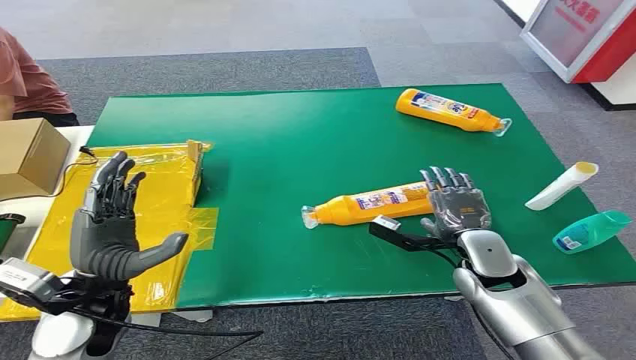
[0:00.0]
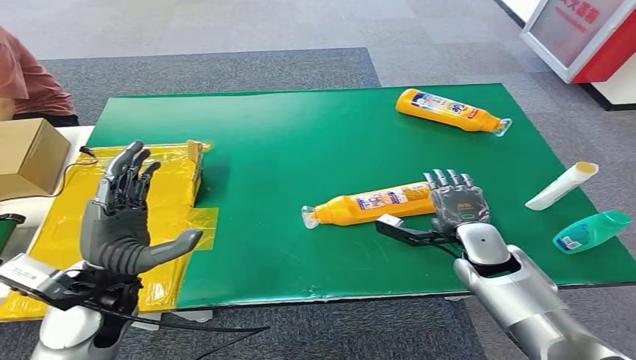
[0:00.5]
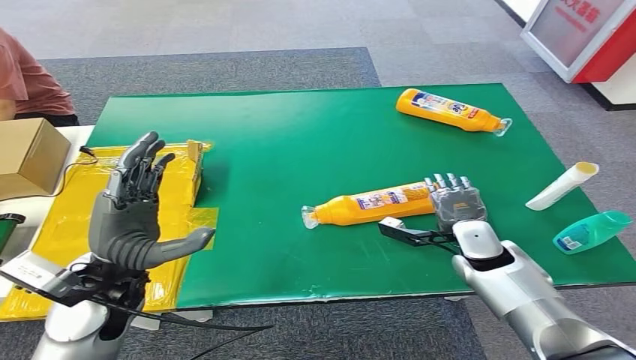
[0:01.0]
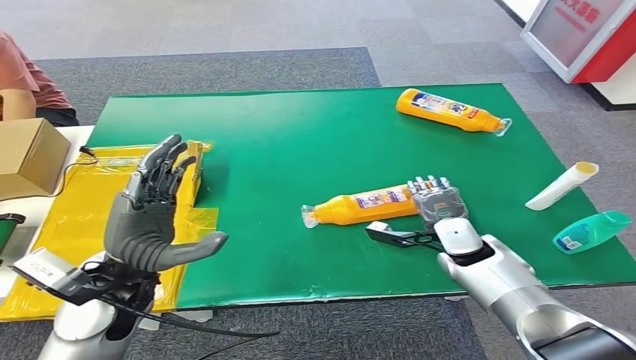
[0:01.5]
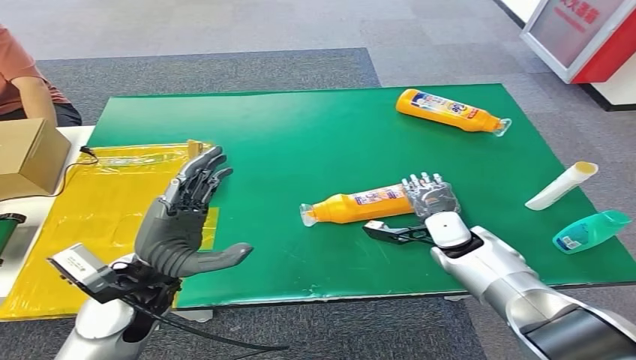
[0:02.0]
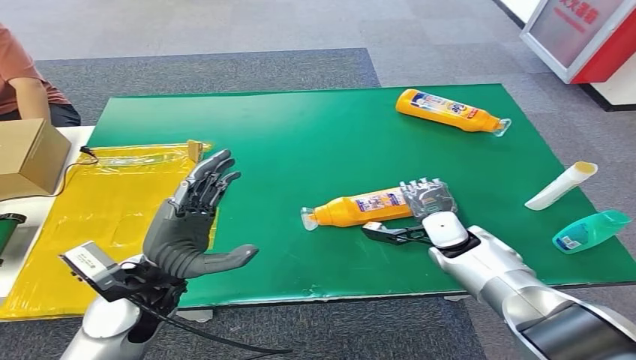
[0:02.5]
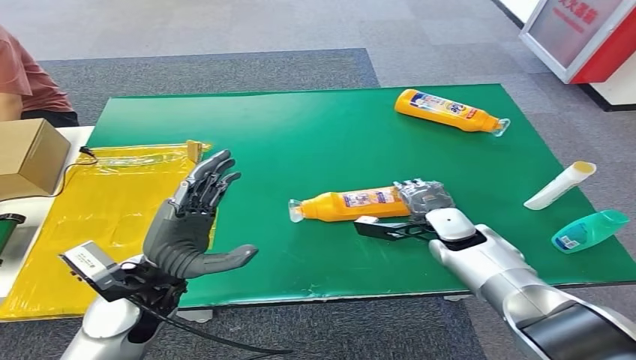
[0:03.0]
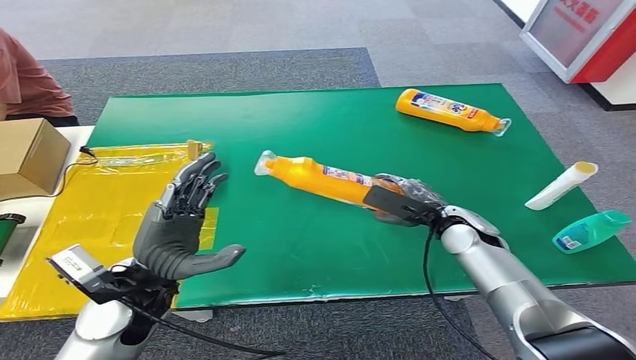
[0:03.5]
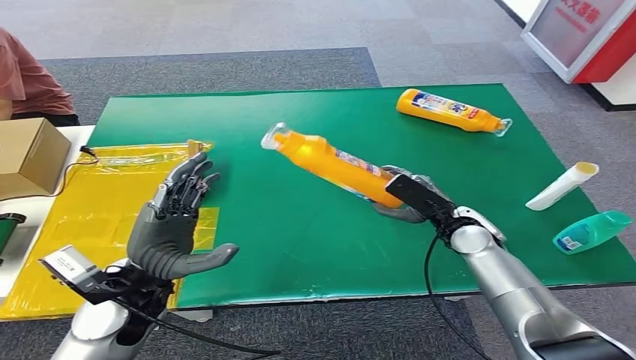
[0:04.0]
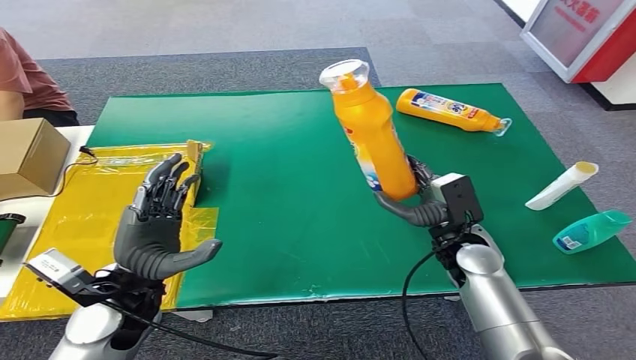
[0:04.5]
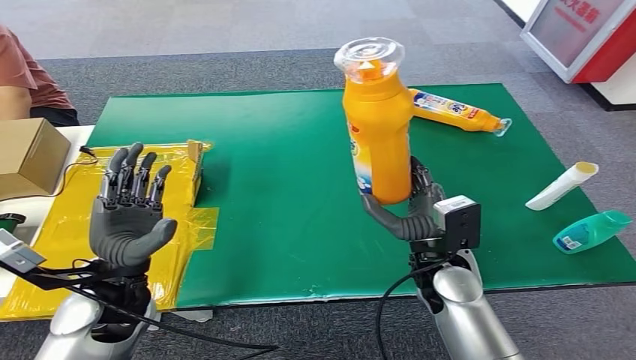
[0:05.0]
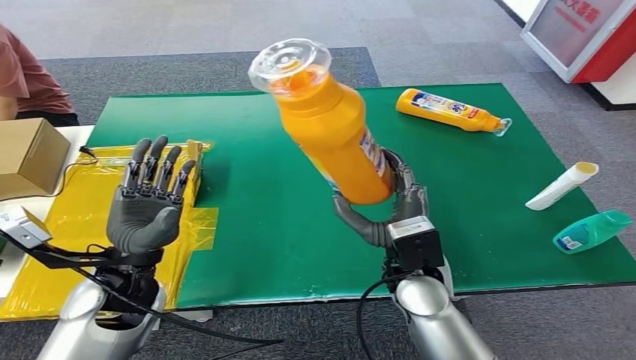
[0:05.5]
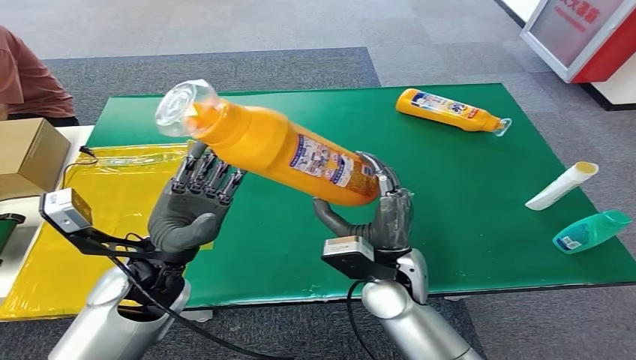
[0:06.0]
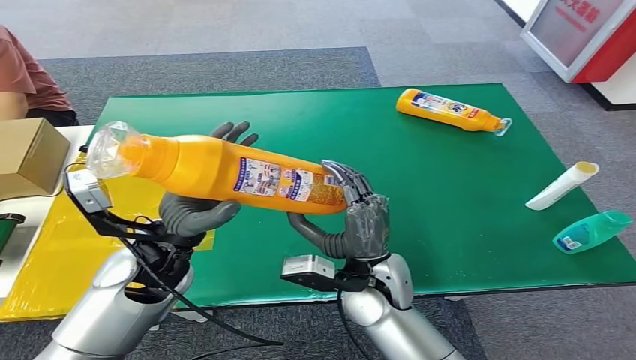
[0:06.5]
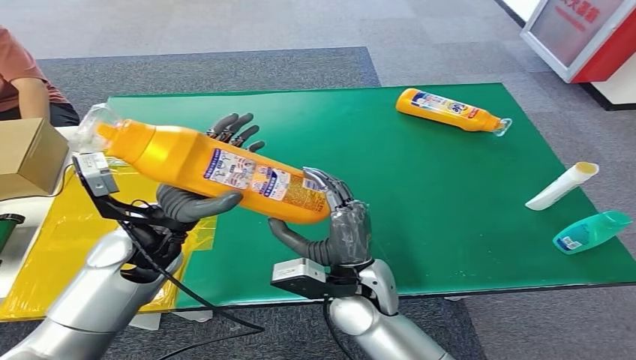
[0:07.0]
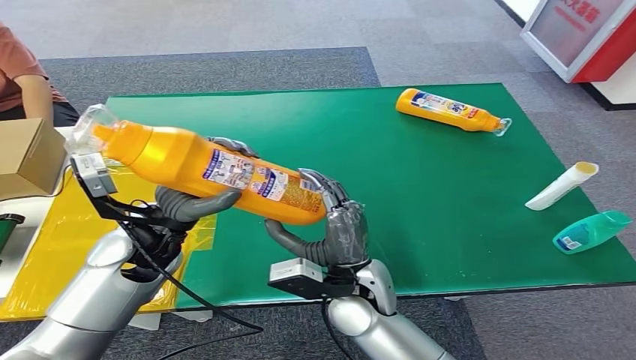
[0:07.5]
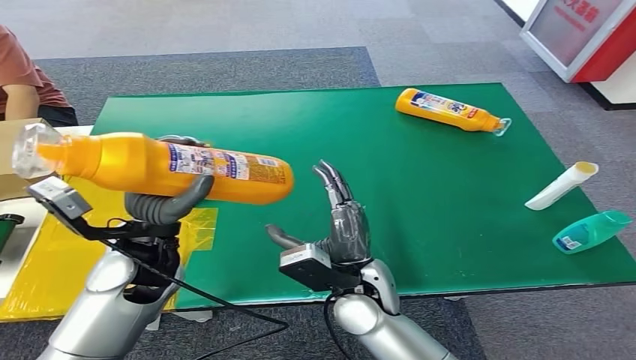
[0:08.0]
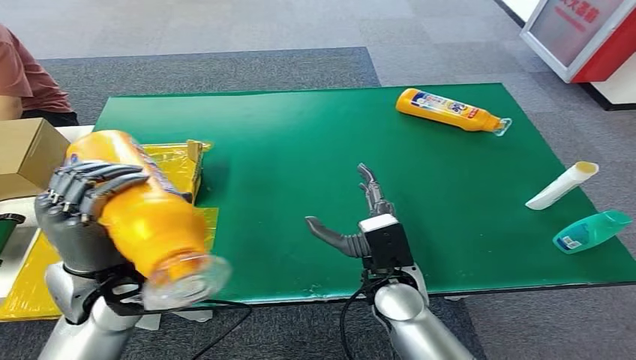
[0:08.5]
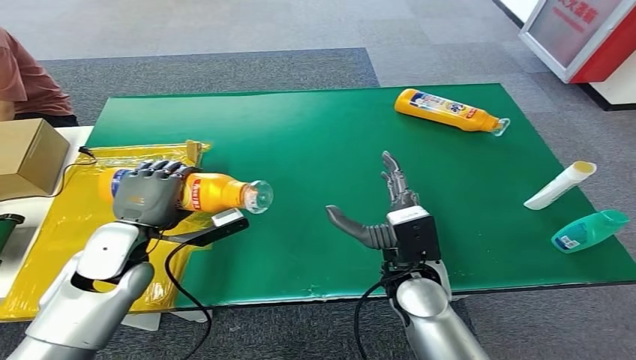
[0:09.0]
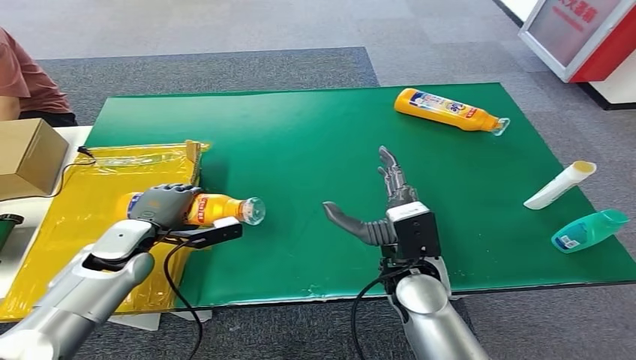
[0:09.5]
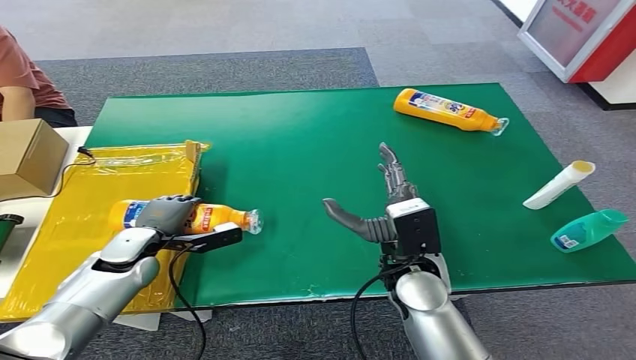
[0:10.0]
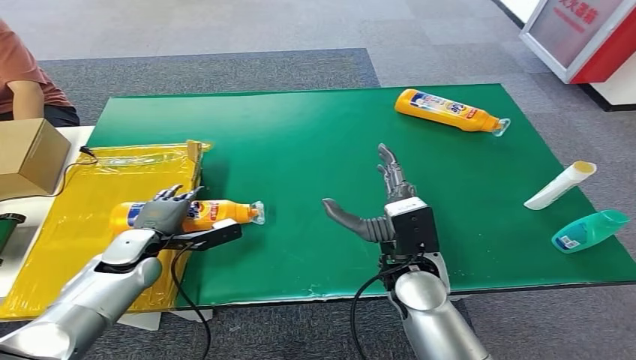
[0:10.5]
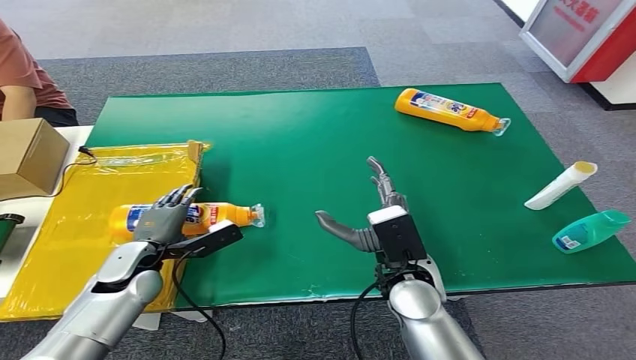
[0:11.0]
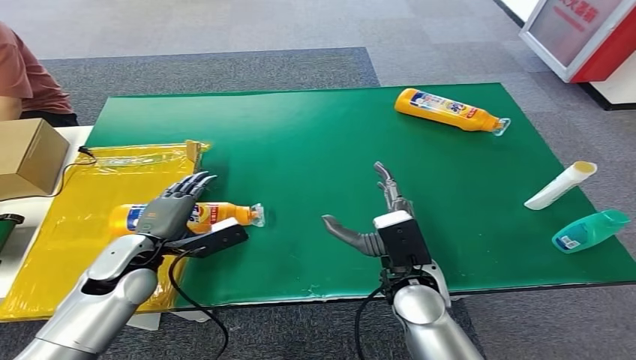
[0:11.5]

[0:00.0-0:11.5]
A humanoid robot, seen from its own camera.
Step, 0:00.0 to 0:03.5: Pick up the bottle from the table.
Step, 0:04.0 to 0:11.5: Turn the bottle to the front side.
0:09.5 to 0:11.5: The left hand ends up roughly 5 cm from where it was.

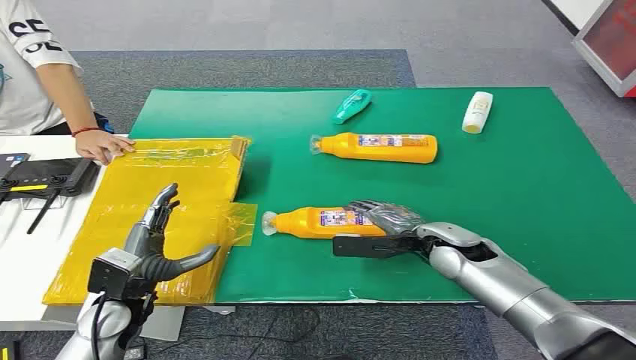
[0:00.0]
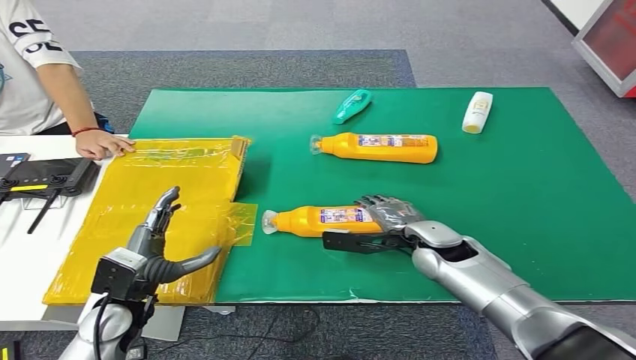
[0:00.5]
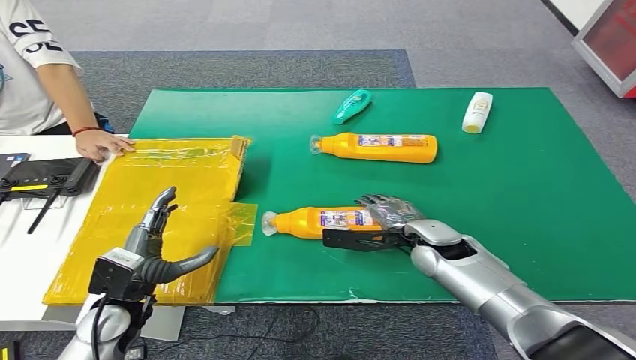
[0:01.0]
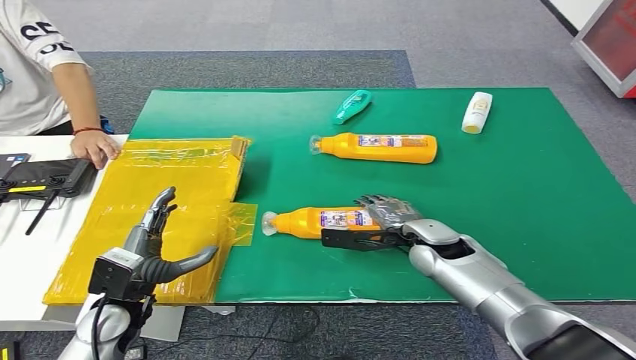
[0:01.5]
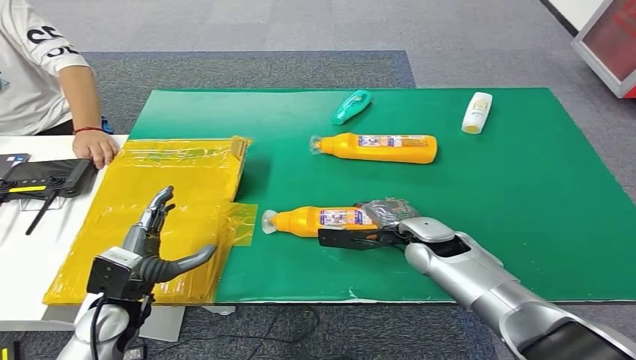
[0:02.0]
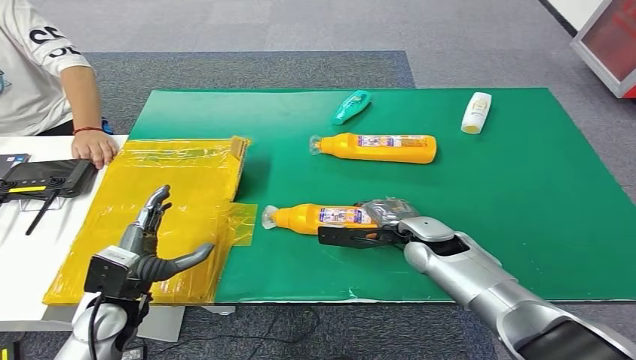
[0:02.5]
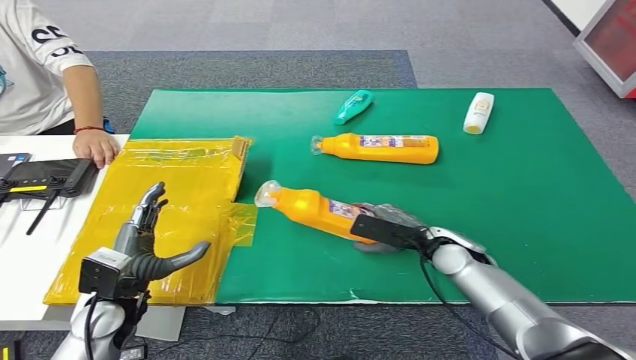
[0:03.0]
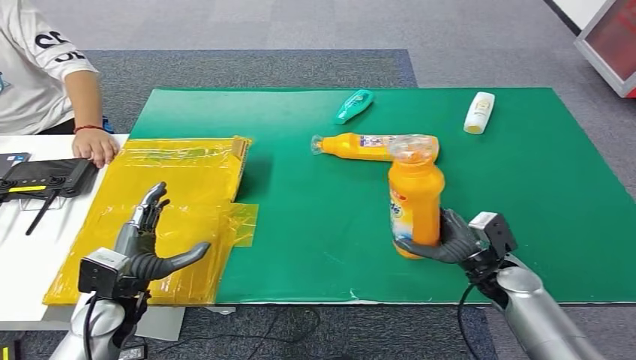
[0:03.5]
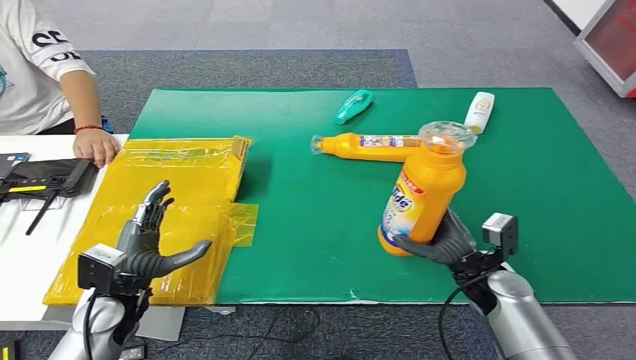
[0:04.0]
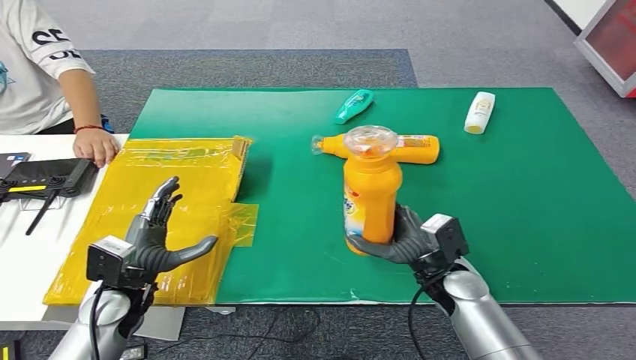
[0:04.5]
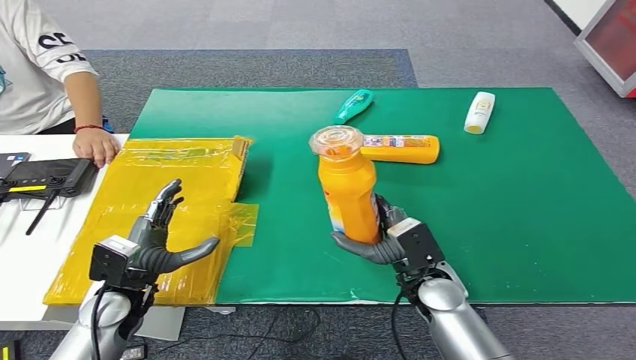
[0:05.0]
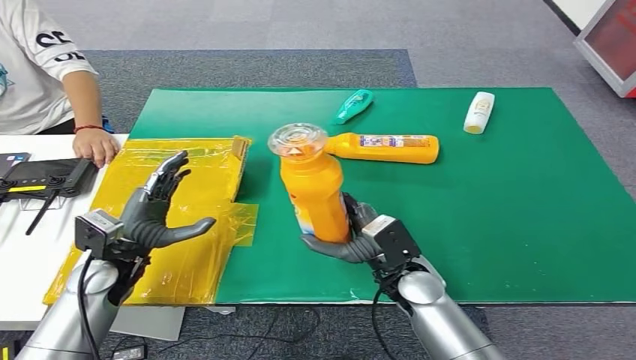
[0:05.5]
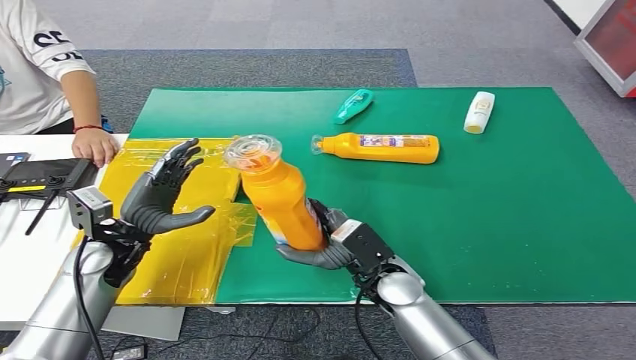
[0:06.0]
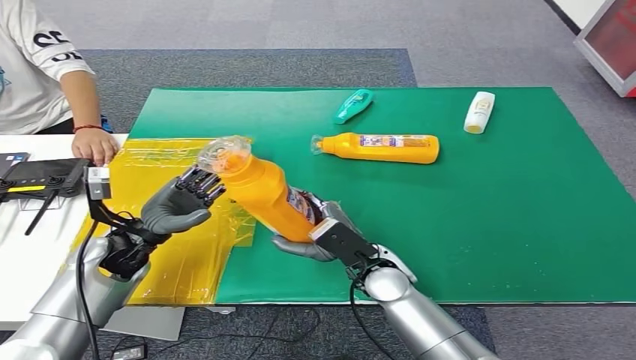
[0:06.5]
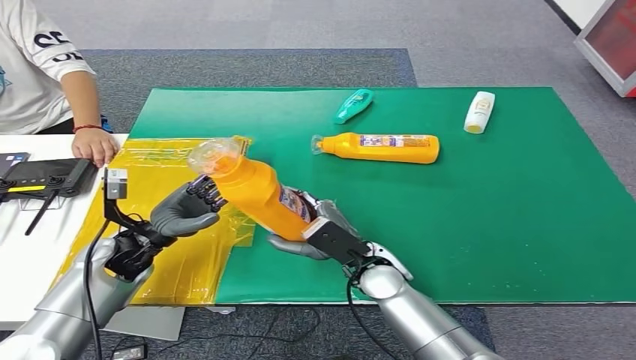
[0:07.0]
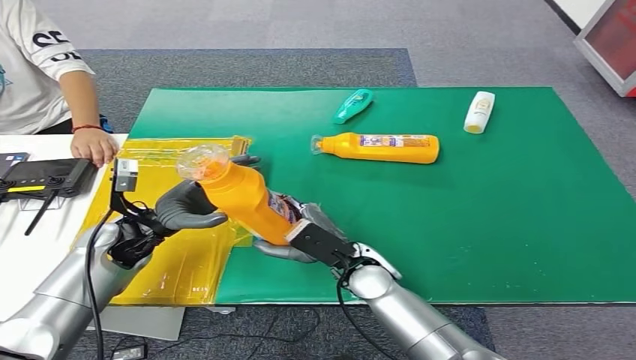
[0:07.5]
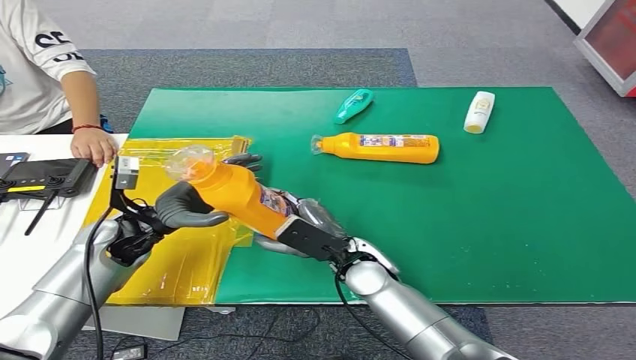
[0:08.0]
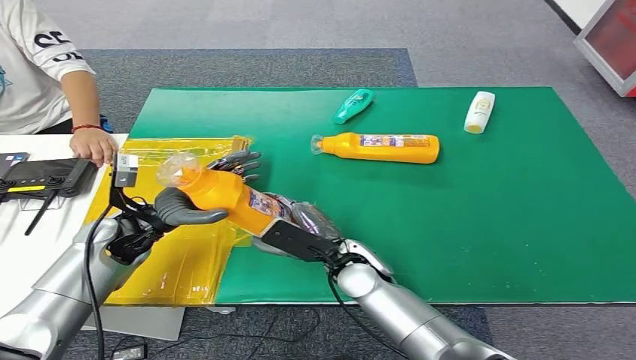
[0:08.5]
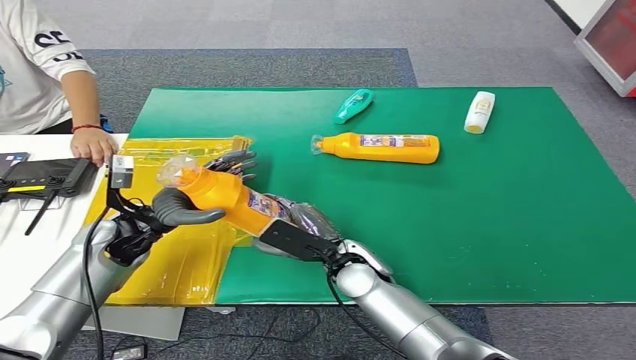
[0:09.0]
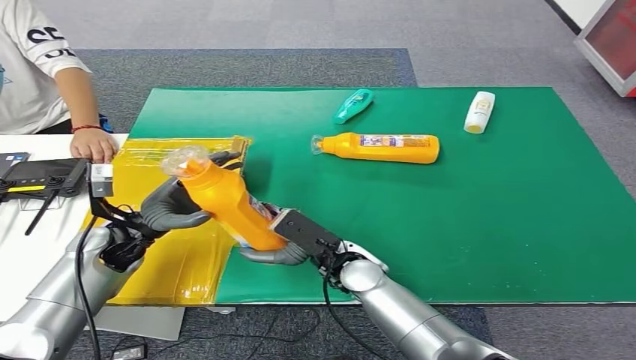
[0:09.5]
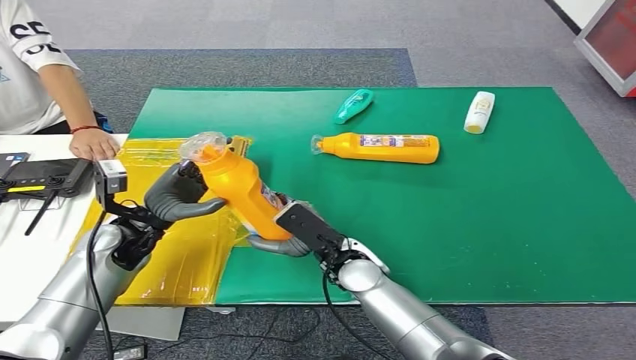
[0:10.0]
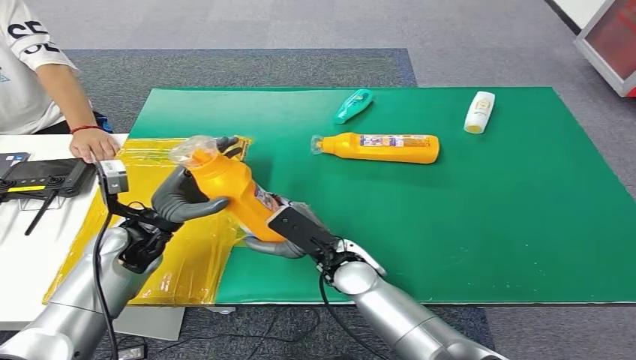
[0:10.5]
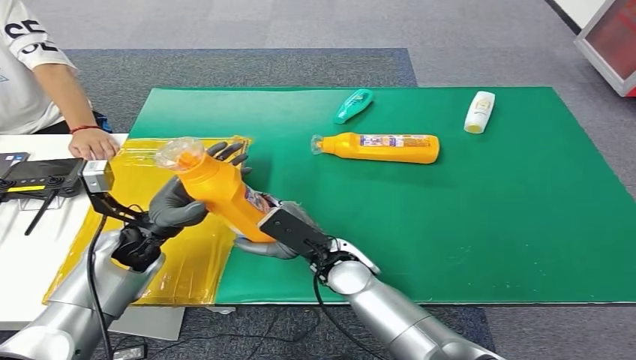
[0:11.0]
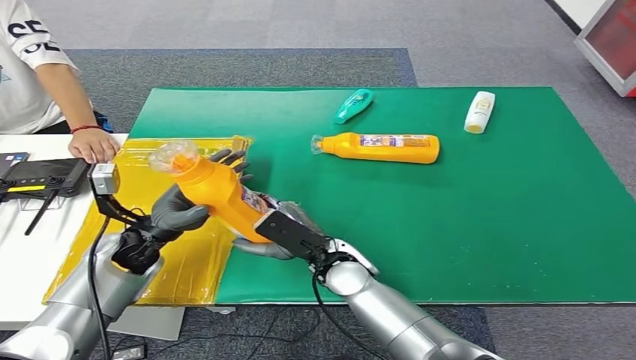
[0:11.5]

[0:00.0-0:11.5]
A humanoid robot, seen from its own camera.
Step, 0:00.0 to 0:03.5: Pick up the bottle from the table.
0:02.0 to 0:04.0: The right hand moves to the right and backward, about 10 cm.
0:07.5 to 0:11.5: There are only small adjustments of the hands.
